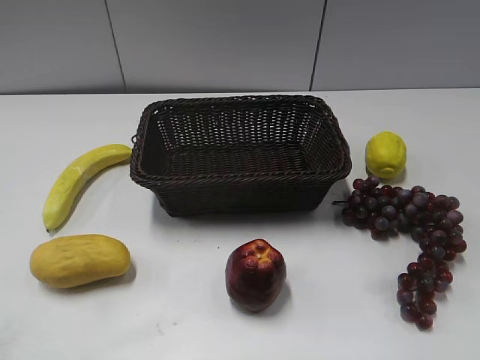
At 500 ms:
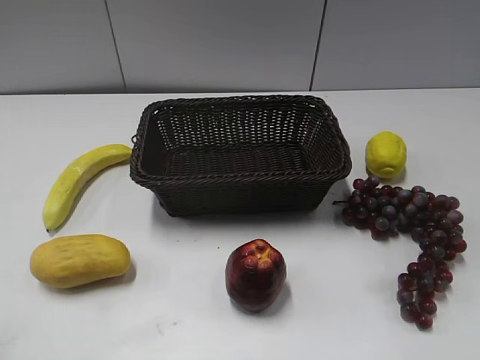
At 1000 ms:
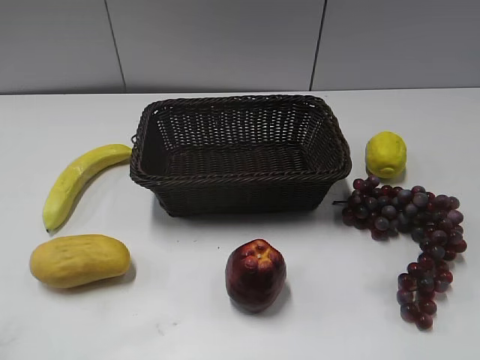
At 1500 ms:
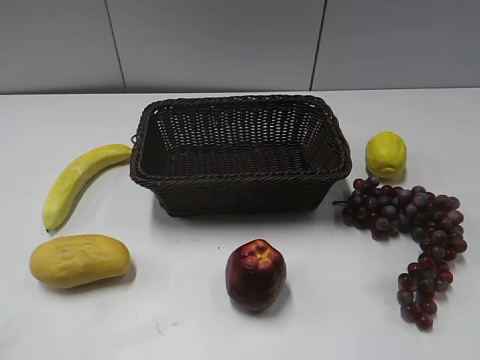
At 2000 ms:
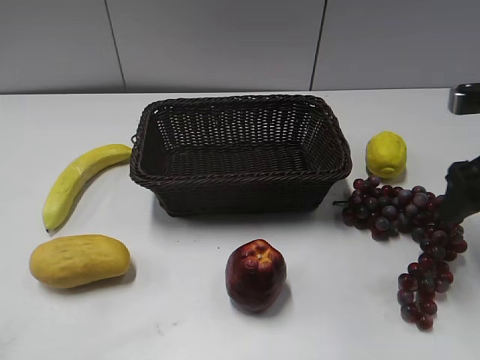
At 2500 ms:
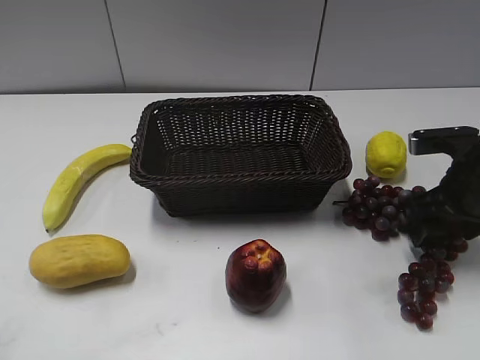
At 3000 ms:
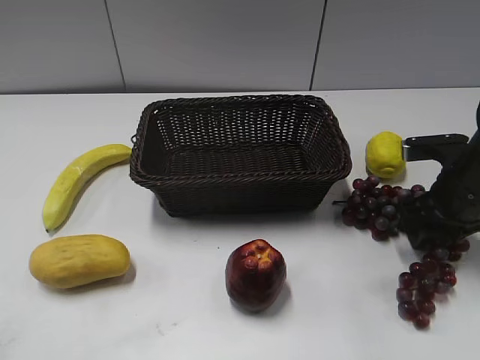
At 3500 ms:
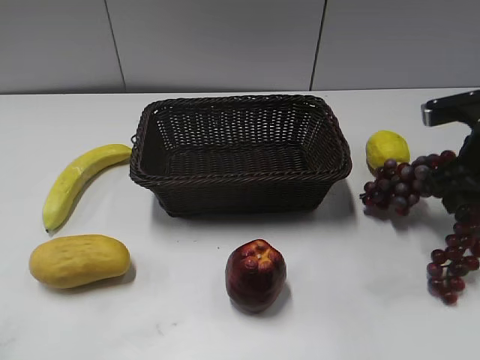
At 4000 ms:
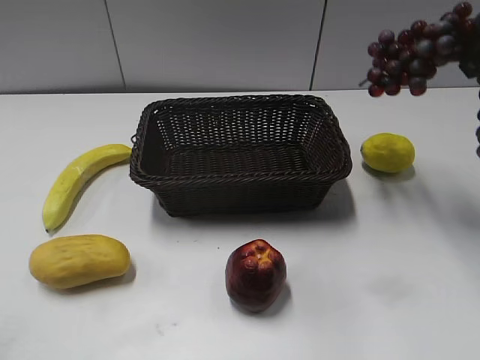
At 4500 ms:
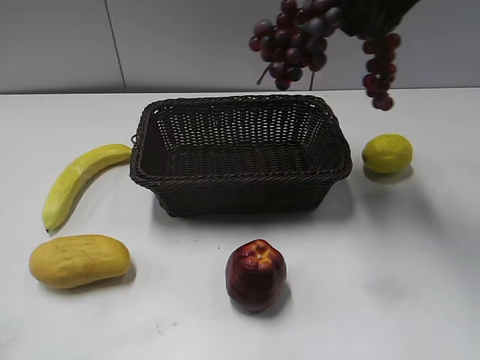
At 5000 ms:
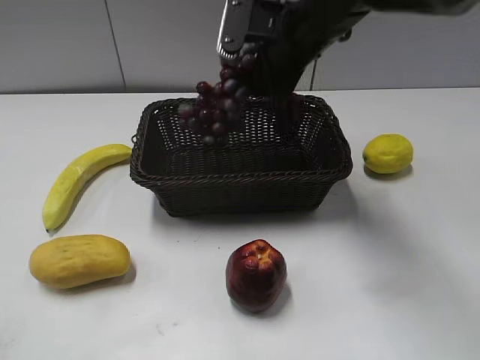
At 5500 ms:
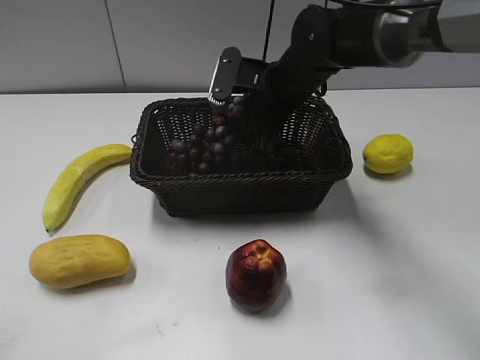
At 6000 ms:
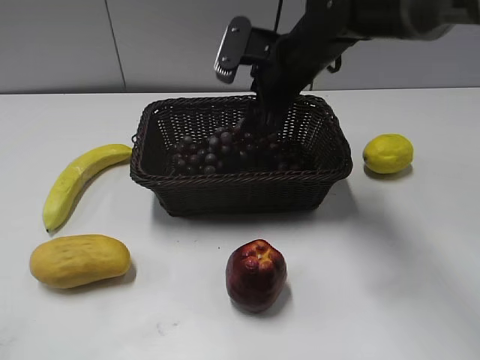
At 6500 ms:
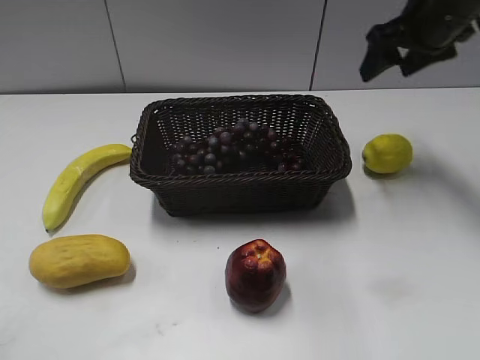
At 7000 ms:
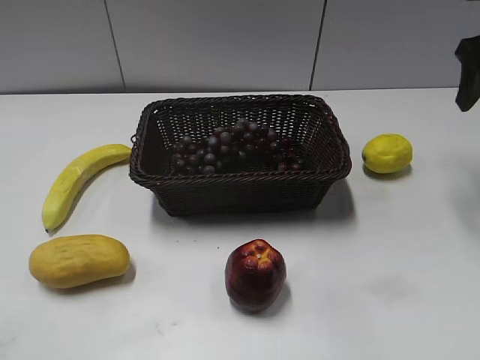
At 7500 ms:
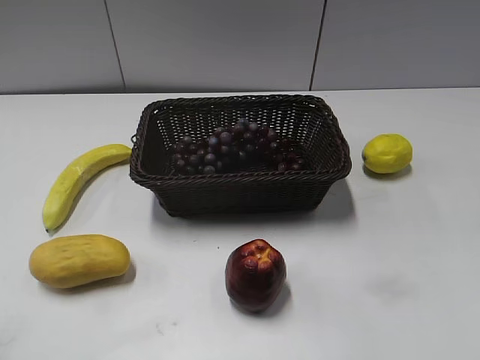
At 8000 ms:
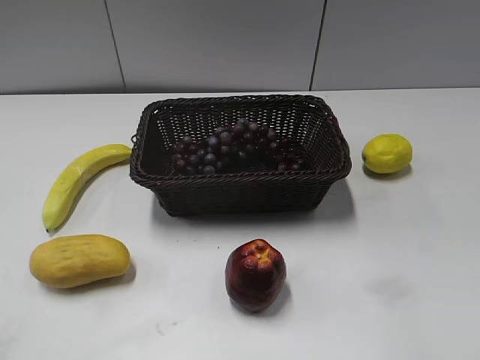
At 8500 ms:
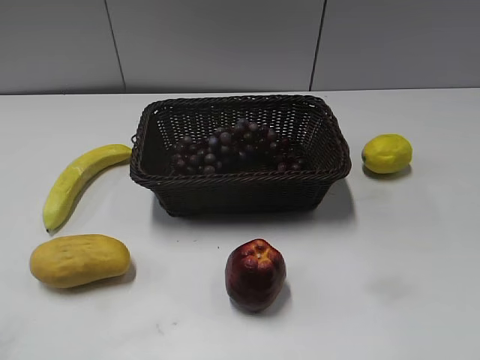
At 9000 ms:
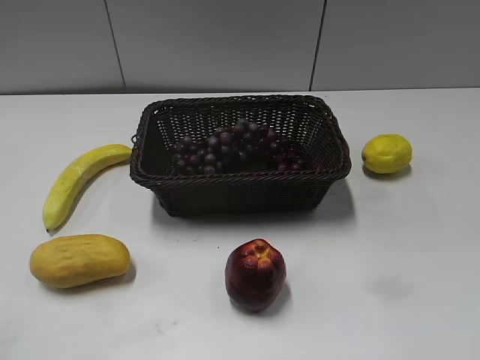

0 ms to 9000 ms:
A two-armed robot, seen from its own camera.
Step, 2000 ms to 3000 ms: Grasp the grape with right gripper.
Step, 3500 ms to 5500 ms: Place the grape in the basket with right gripper.
2000 ms to 4500 ms: The right gripper heads to the left, upward and forward, covering some 20 cm, and closes its fingers.
4500 ms to 7000 ms: The right gripper goes some 15 cm to the right, and opens up.
7000 ms to 9000 ms: The right gripper travels backward by about 35 cm.
